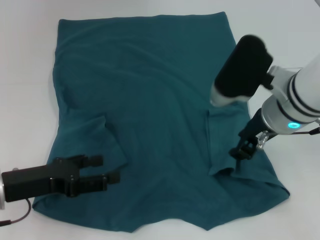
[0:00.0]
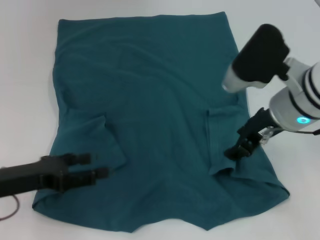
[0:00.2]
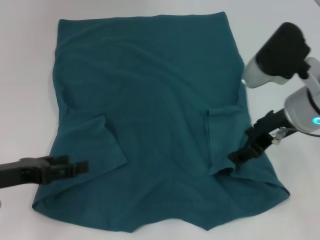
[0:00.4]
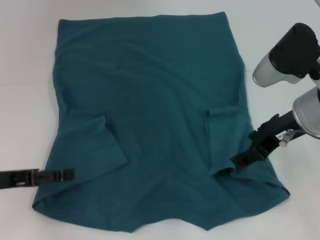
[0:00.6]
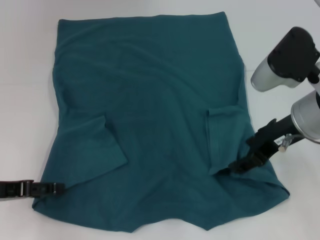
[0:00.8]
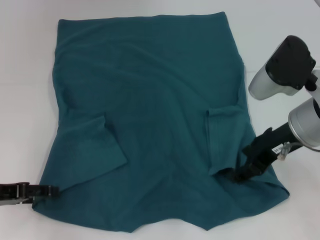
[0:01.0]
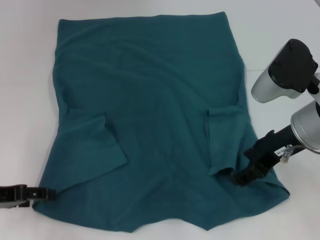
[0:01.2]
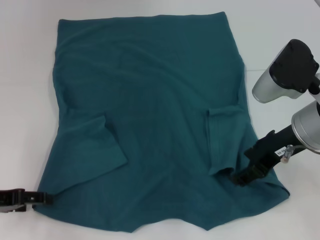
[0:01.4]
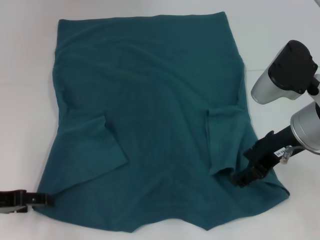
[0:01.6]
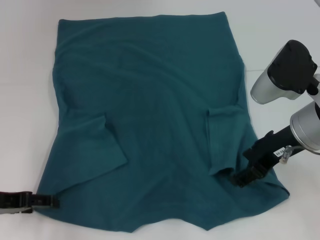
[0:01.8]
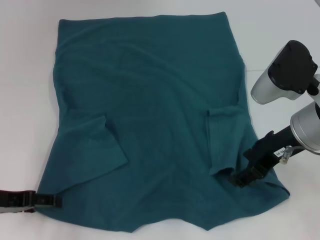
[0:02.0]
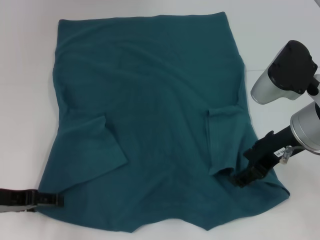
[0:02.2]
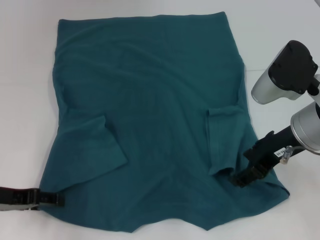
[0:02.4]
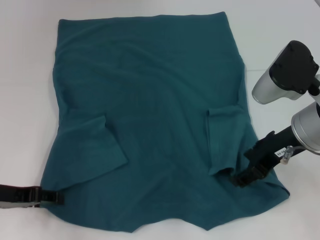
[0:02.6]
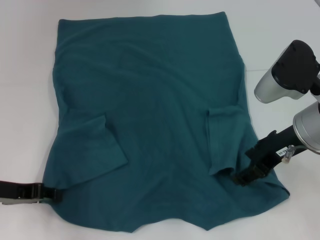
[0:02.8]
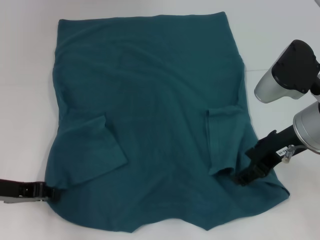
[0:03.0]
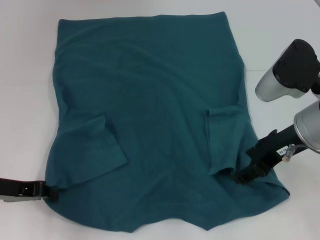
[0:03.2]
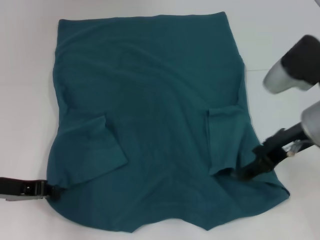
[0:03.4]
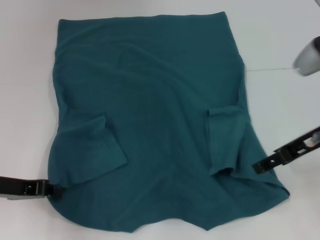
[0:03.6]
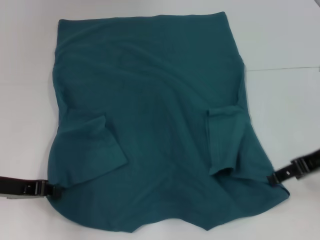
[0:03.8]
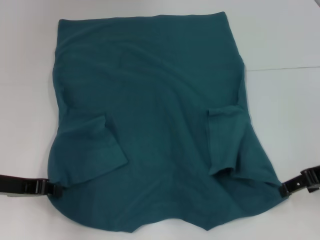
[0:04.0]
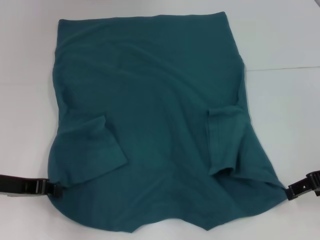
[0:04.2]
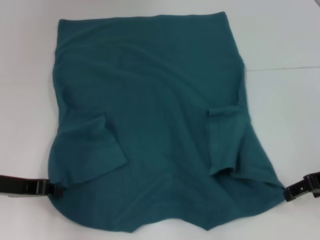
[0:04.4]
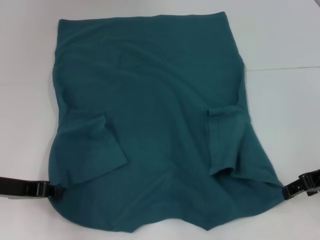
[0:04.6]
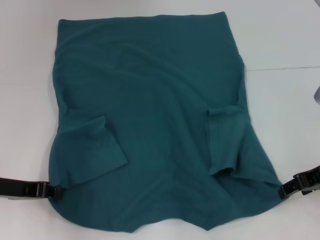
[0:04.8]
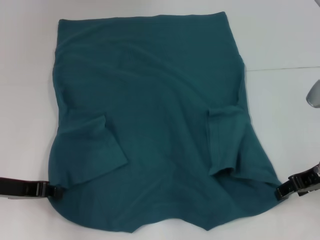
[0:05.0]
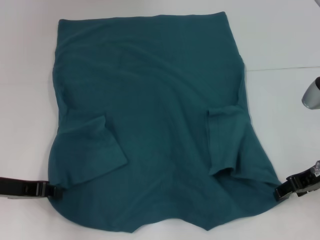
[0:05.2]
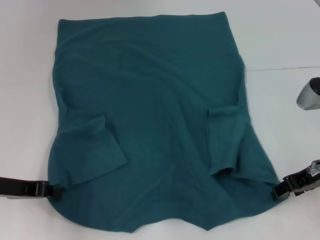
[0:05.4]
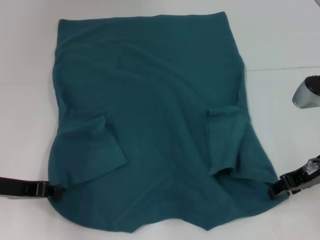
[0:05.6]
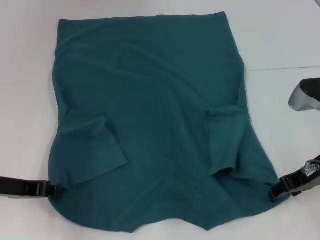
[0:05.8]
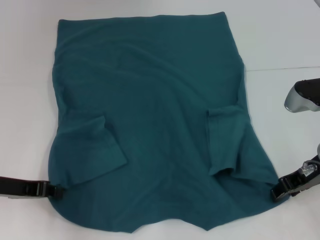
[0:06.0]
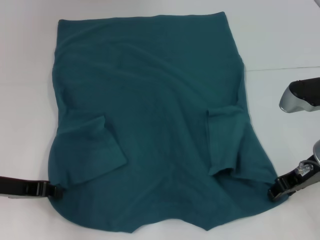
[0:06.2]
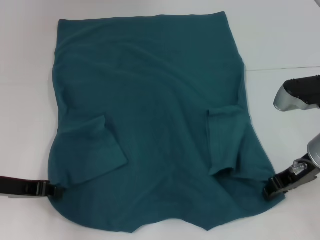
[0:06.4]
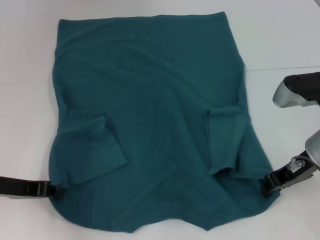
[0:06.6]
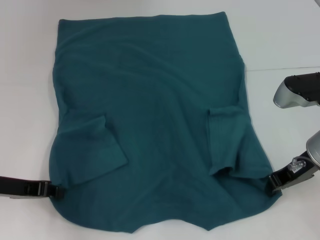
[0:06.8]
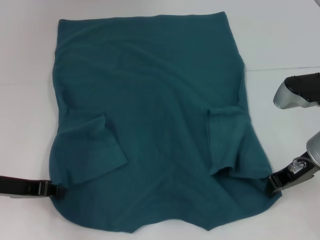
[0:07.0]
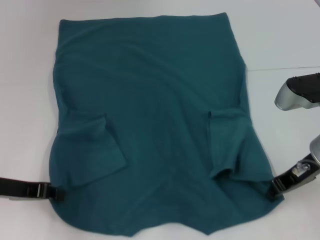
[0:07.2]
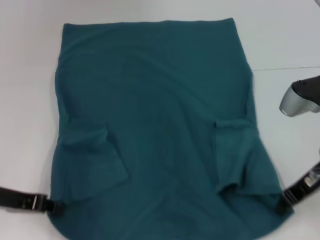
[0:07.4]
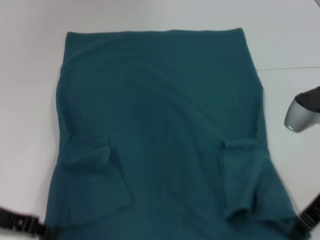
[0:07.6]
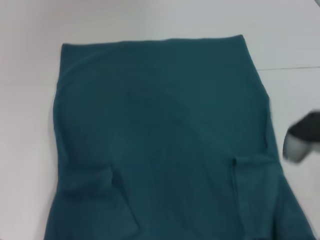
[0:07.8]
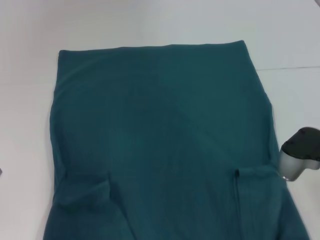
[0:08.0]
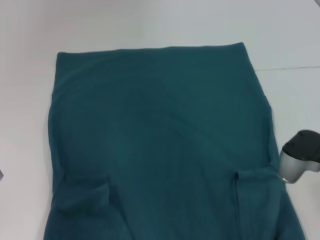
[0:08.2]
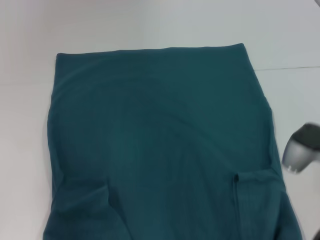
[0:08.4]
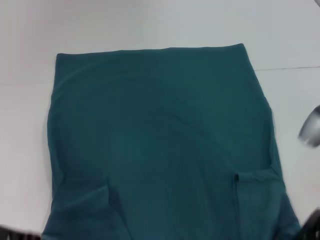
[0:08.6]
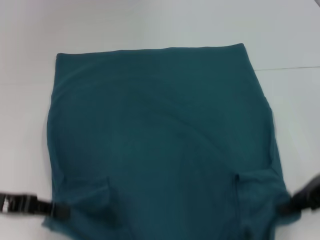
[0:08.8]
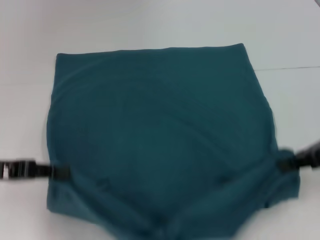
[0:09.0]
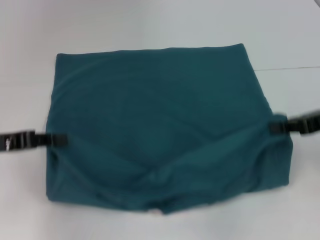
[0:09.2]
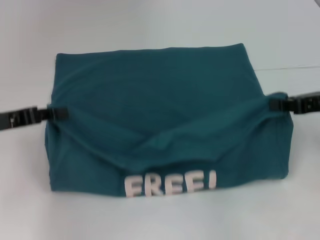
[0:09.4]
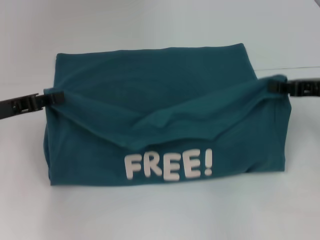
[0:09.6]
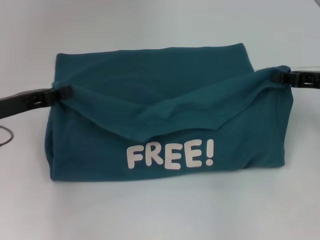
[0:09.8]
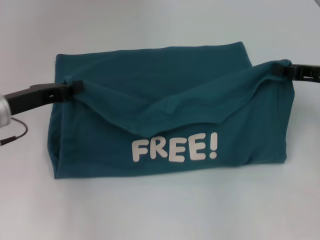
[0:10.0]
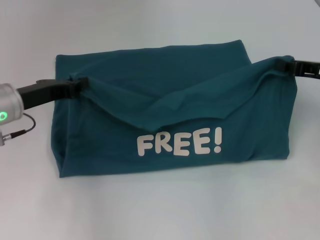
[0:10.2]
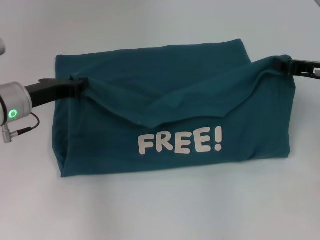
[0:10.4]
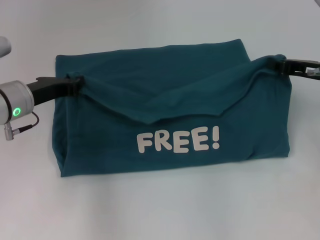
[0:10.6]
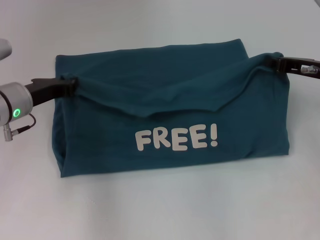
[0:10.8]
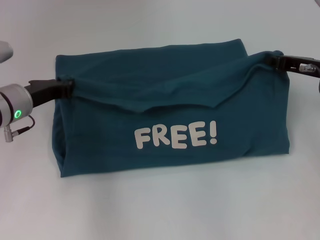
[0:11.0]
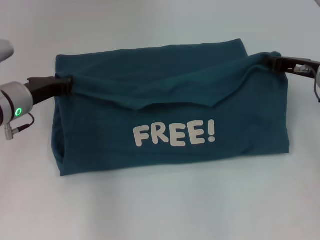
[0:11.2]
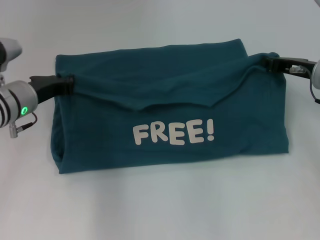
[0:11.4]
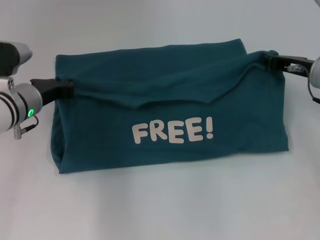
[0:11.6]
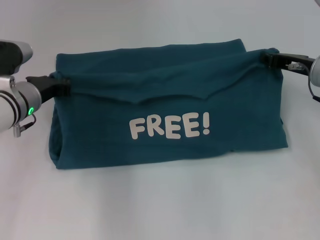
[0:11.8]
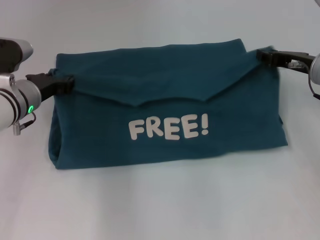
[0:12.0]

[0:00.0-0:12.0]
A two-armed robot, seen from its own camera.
Step, 0:00.4 to 0:03.2: Grab the bottom left corner with your left hand.
Step, 0:03.4 to 0:07.2: Grab the bottom right corner with your right hand.
0:00.0 to 0:01.6: The right gripper shifts by about 5 cm, and opens up. The left gripper heads to the left, covering roughly 5 cm.
0:01.6 to 0:03.0: The left gripper closes up.
0:03.0 to 0:04.4: The right gripper moves to the right, approximately 10 cm; the left gripper closes.
0:04.4 to 0:06.0: The right gripper changes place by roughly 5 cm.
0:06.0 to 0:07.6: The right gripper closes.
0:07.6 to 0:09.0: The right gripper moves to the right, roughly 5 cm.
0:09.0 to 0:10.4: The left gripper travels forward and to the right by about 10 cm. Meanwhile the right gripper travels forward by approximately 10 cm.

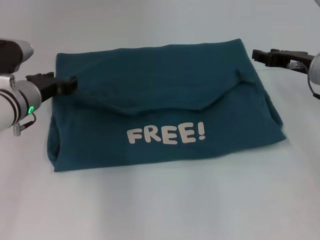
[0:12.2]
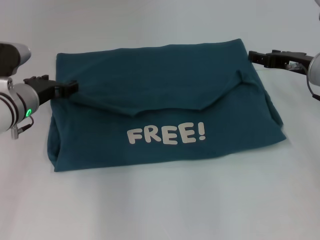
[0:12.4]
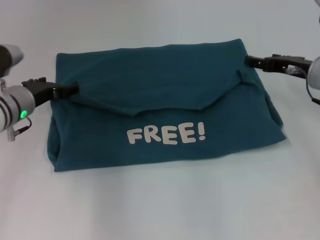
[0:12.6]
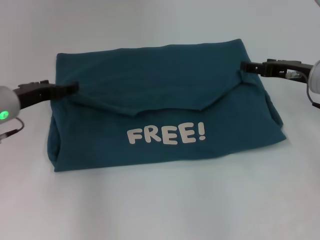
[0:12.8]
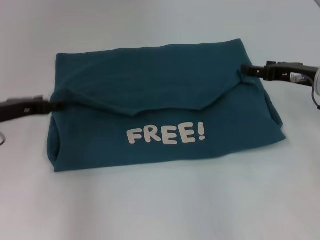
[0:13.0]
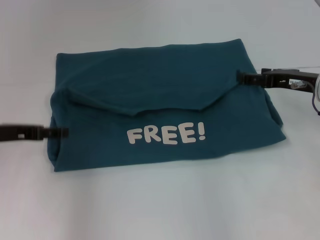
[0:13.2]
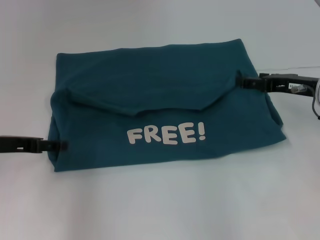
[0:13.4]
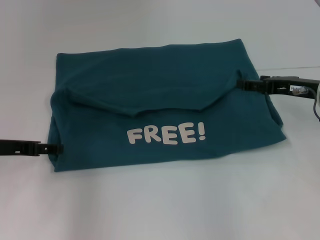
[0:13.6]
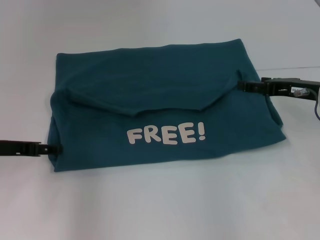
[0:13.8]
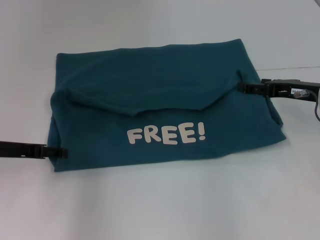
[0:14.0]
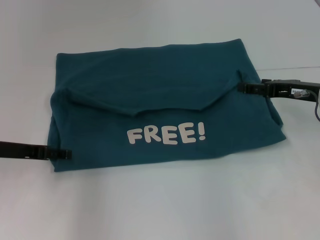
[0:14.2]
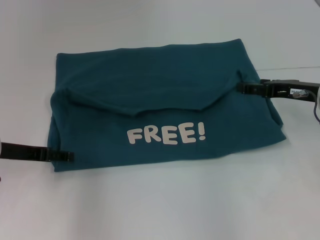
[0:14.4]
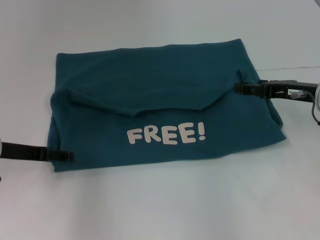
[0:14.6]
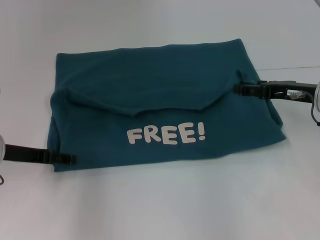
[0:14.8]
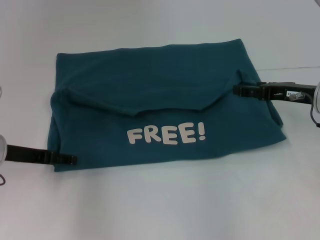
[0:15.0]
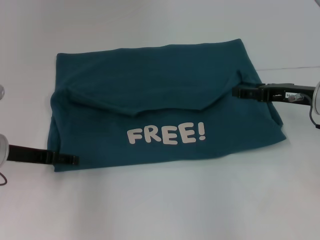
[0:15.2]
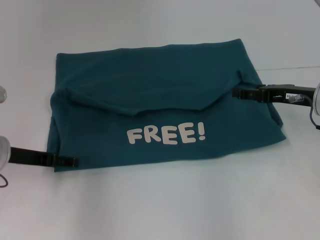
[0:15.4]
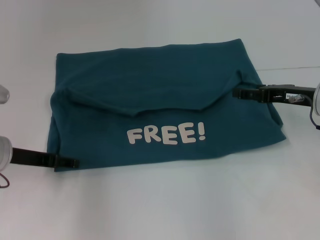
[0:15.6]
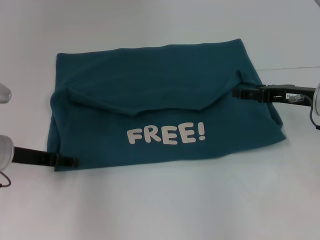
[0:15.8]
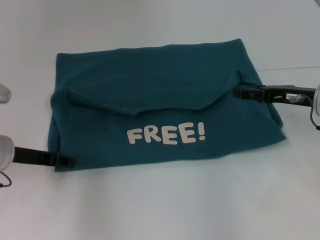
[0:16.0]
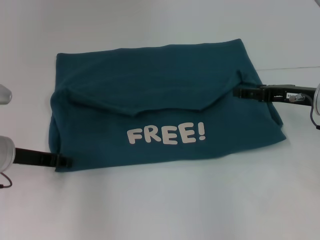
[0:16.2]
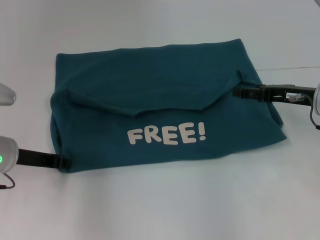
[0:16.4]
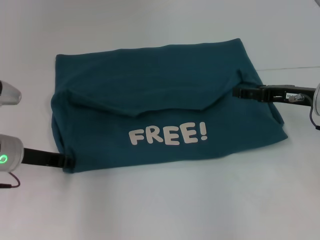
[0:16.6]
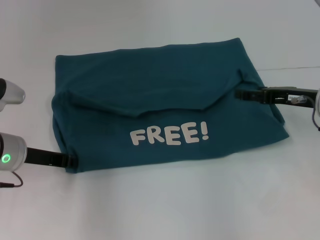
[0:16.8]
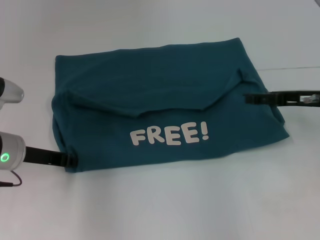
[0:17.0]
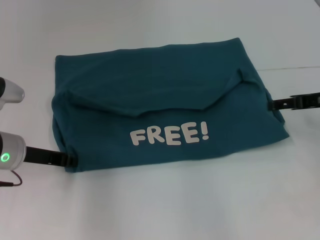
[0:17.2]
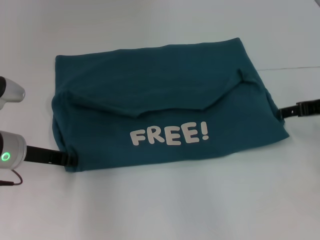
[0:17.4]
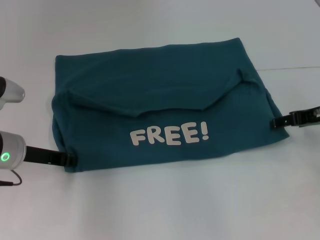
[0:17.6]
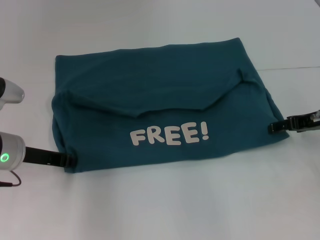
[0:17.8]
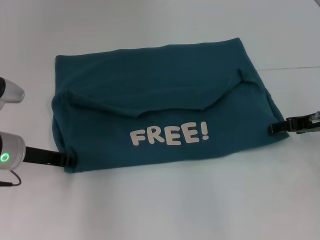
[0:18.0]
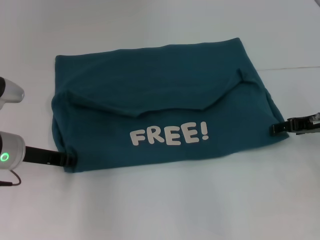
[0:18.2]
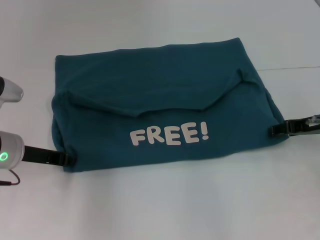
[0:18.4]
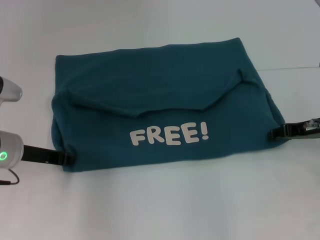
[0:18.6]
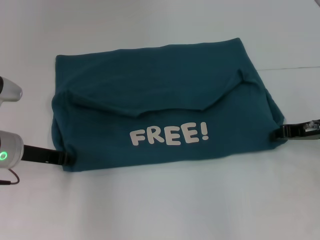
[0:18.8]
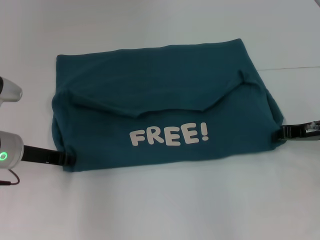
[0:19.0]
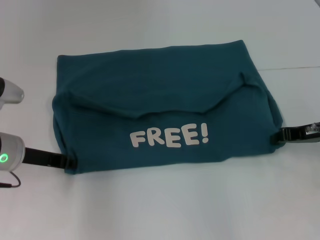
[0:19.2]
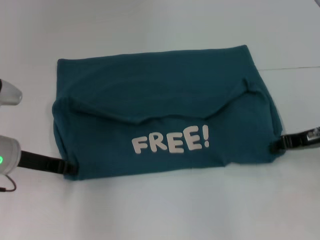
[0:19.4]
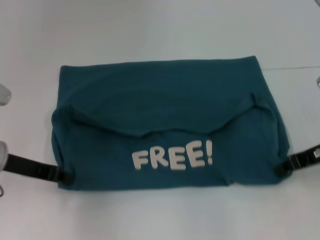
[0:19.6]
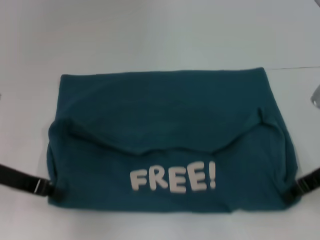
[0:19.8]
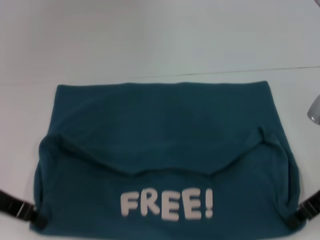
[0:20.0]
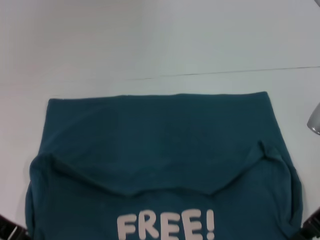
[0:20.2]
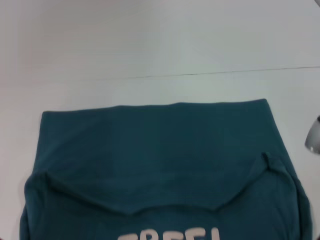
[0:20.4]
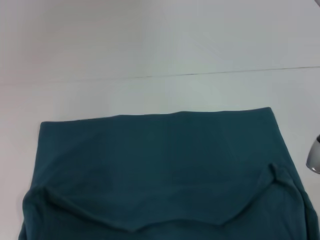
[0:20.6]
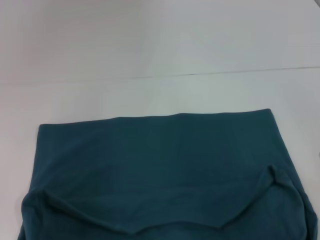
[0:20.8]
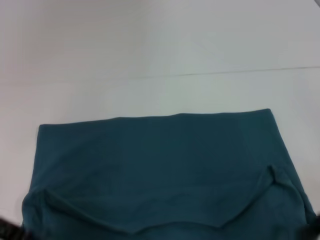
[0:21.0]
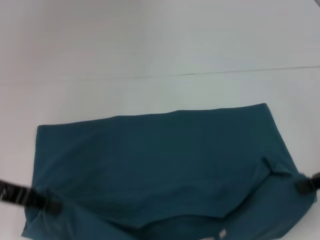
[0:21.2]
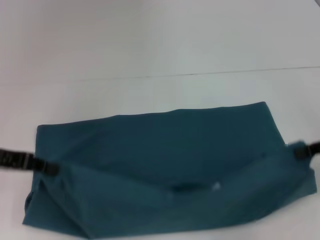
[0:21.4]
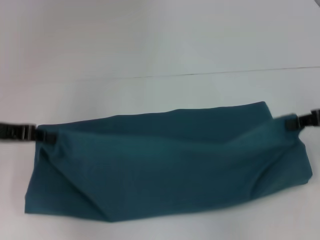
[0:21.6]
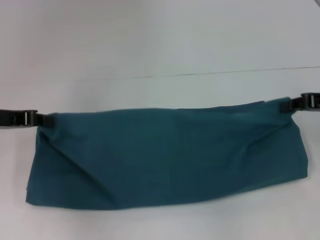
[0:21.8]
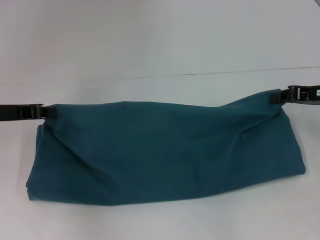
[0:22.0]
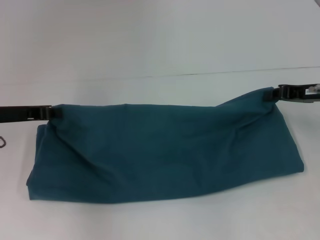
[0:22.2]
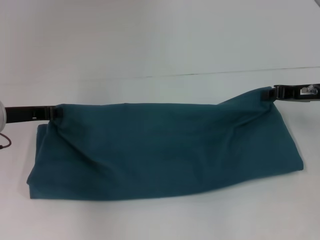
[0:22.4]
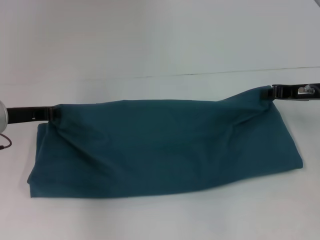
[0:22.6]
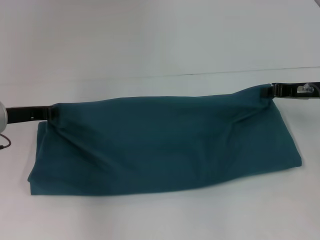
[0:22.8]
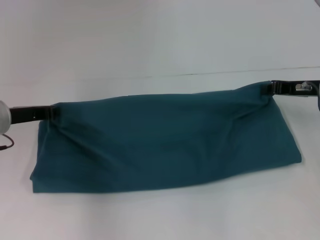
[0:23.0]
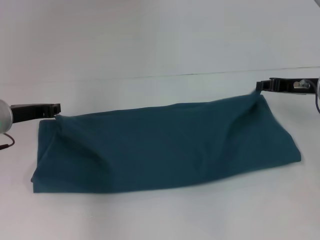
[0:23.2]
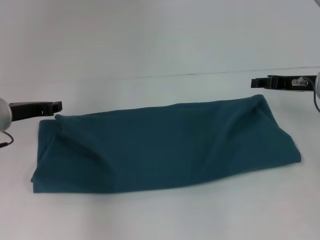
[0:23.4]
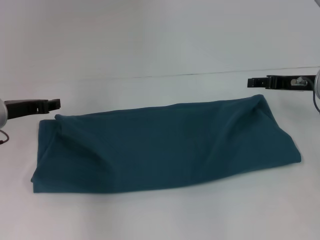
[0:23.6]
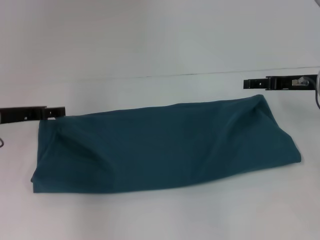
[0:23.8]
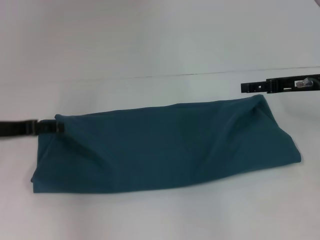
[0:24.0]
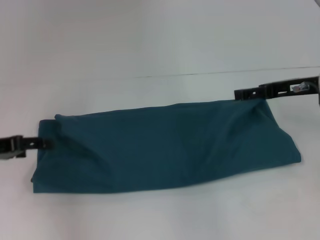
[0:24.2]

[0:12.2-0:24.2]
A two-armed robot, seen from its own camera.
Step, 0:13.0 to 0:20.0: Pull the clothes with your left hand.
Step, 0:13.0 to 0:20.0: Pull the clothes with your right hand.
Step, 0:20.2 to 0:23.6: Fold the clothes to the left.
Step, 0:20.2 to 0:23.6: Fold the clothes to the right.
0:12.2 to 0:13.8: The left gripper travels backward and to the left by about 10 cm, and opens, while the right gripper opens its fingers.
0:13.8 to 0:15.2: The grippers move only a little.
0:15.2 to 0:16.6: The left gripper closes.
0:18.2 to 0:19.8: The right gripper is displaced backward by about 5 cm, and closes. The left gripper moves roughly 5 cm.
0:19.8 to 0:21.2: The right gripper changes place by some 5 cm.
0:21.2 to 0:22.6: Both grippers travel together forward, roughly 10 cm.
0:22.6 to 0:24.2: The left gripper travels to the left and backward by approximately 5 cm, and opens. The right gripper opens.
